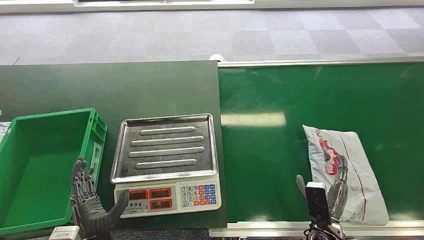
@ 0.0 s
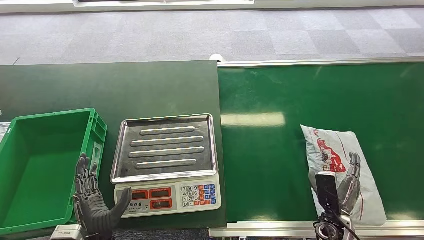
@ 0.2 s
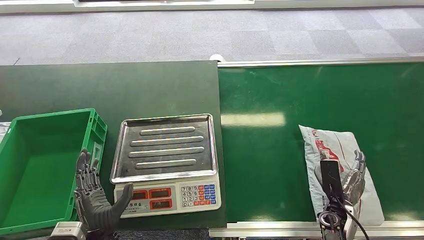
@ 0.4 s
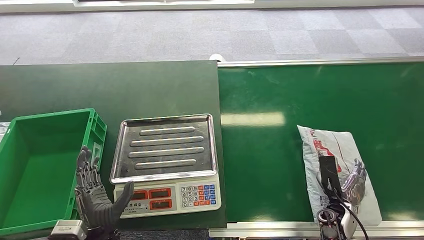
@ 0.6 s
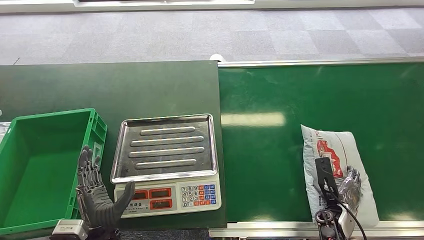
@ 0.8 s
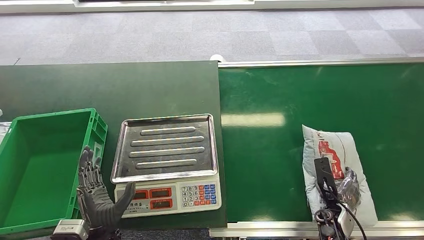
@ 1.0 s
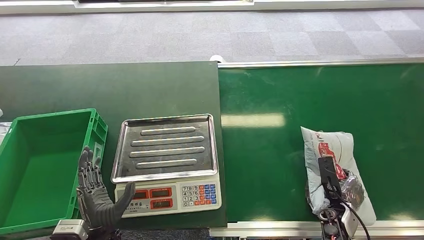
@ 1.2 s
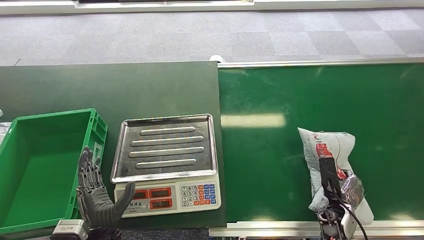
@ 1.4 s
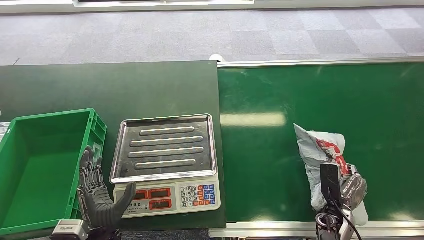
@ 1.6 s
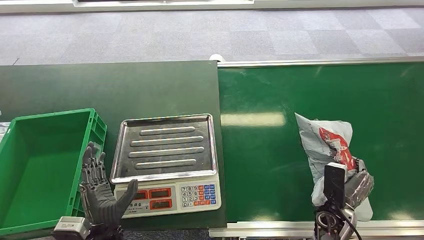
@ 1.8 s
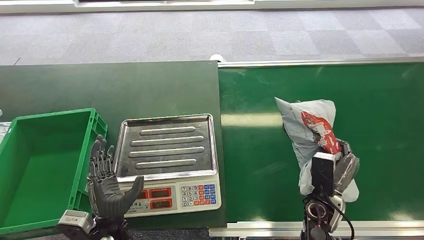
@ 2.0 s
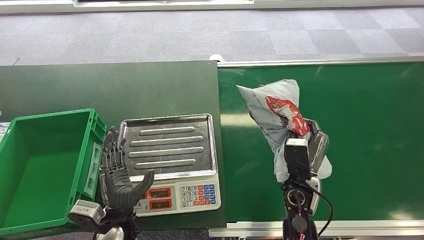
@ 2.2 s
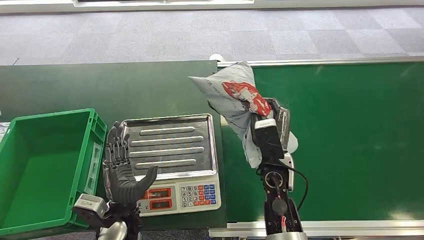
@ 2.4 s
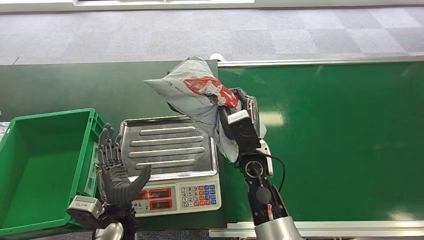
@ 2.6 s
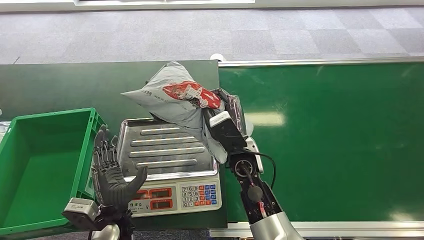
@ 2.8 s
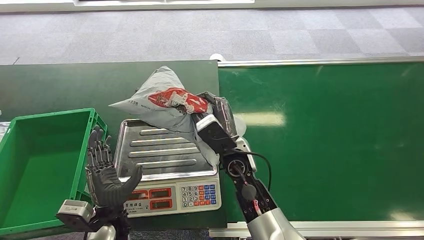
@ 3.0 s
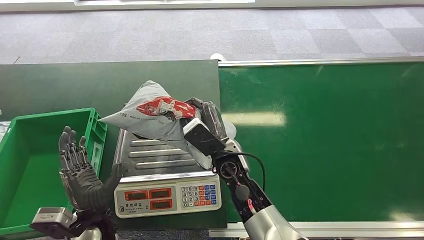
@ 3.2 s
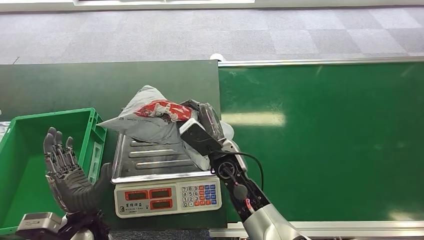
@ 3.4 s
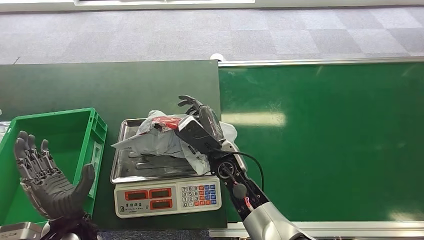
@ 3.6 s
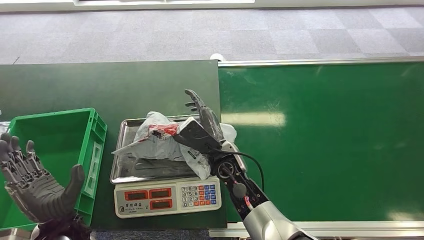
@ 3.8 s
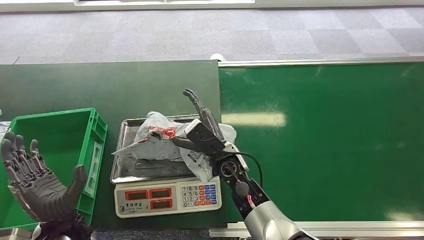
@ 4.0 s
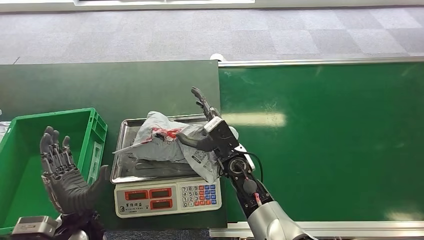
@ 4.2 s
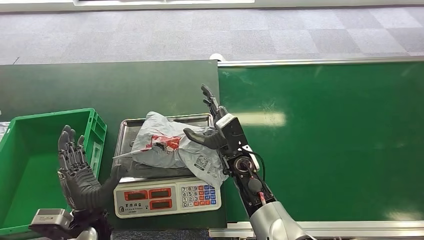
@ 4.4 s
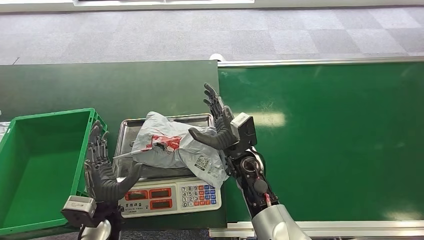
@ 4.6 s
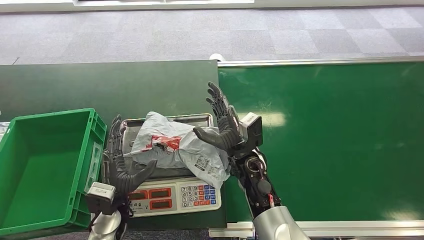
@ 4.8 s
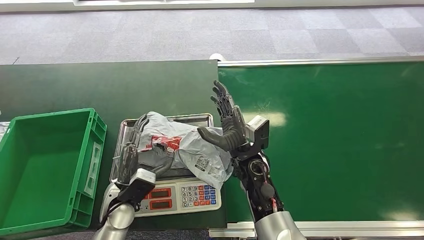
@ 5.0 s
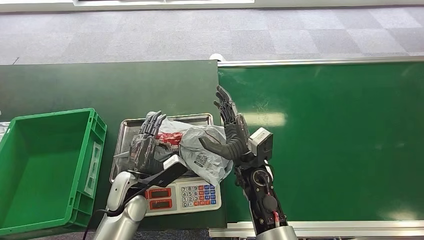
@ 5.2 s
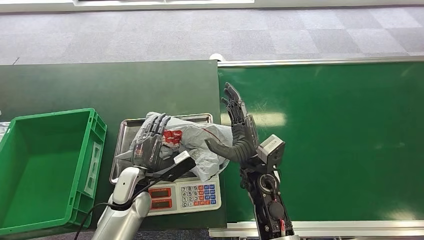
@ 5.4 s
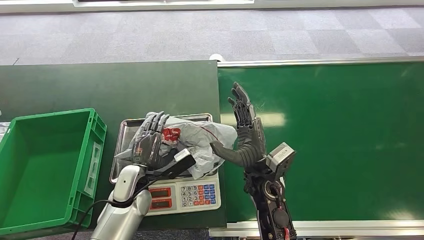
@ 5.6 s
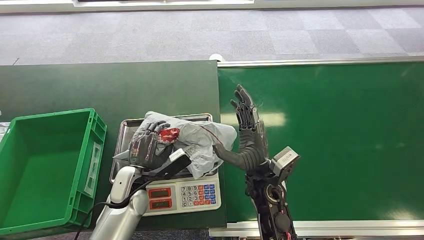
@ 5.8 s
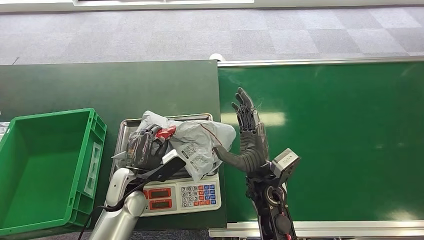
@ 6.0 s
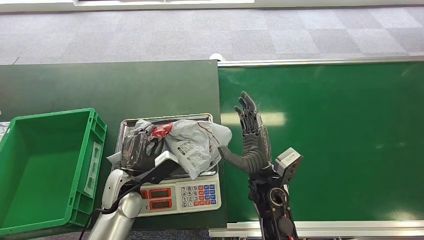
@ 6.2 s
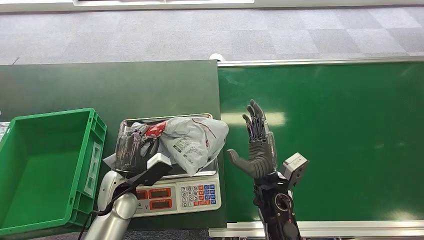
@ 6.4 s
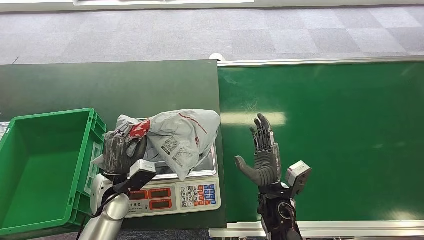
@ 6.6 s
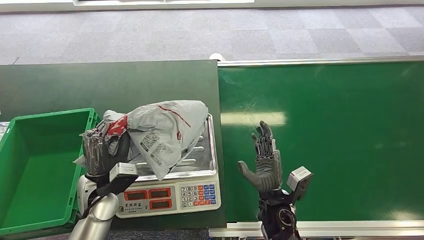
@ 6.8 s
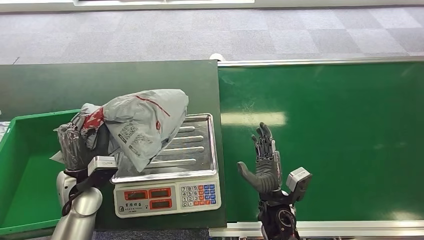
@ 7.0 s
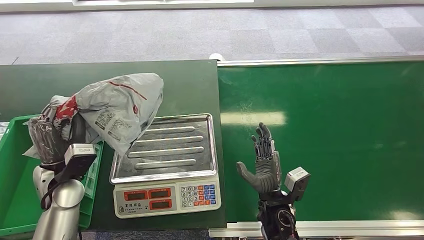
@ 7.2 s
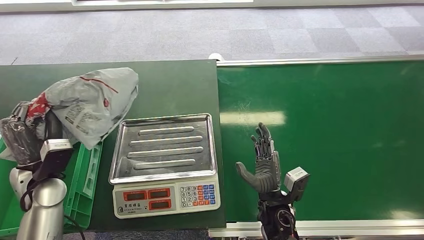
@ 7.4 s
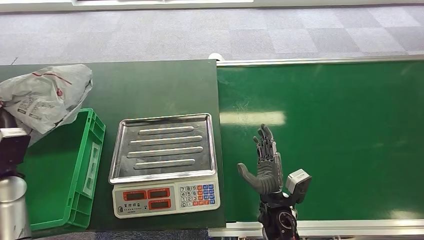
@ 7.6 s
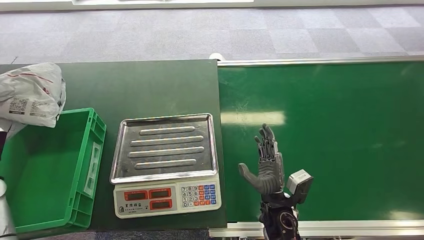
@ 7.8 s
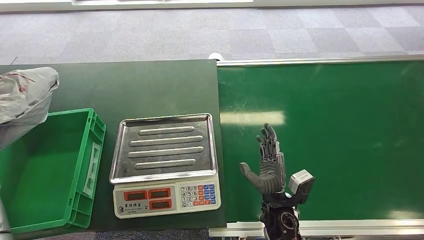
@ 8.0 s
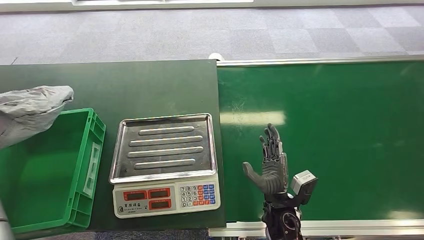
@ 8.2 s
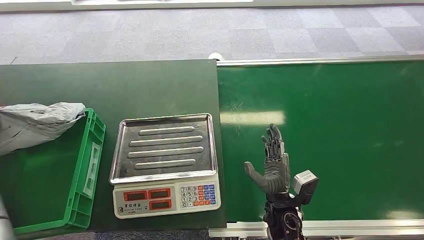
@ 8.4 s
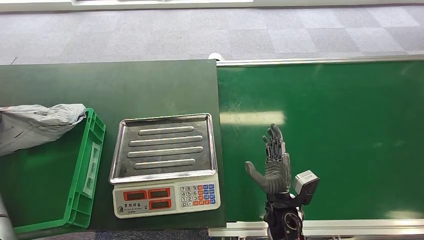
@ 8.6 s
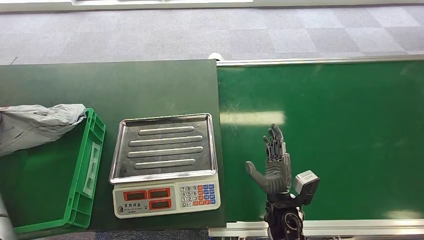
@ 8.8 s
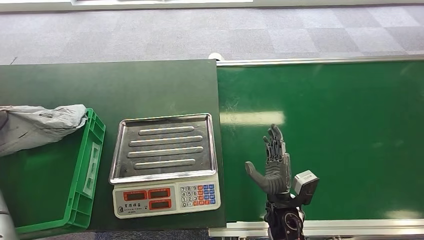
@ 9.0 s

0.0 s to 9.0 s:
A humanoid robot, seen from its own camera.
Step, 0.0 to 1.6 s: Pick up the package from the conveyor belt.
Step, 2.4 to 4.4 s: Place the package onto the inbound machine.
Step, 5.2 to 6.8 s: Pick up the package from the inbound machine.
Step, 7.6 to 9.0 s: Place the package into the parcel locker.
4.4 to 6.0 s: The right hand is displaced backward by approximately 5 cm. Meanwhile the left hand travels forward by some 10 cm.
7.6 to 9.0 s: The left hand heads to the left, covering some 10 cm.
